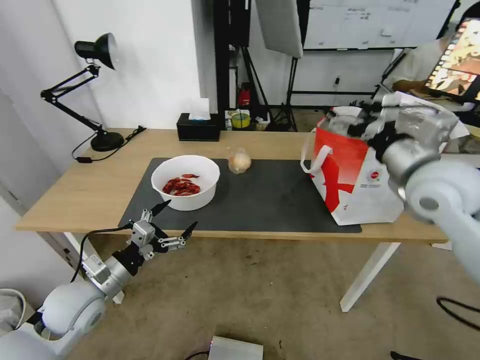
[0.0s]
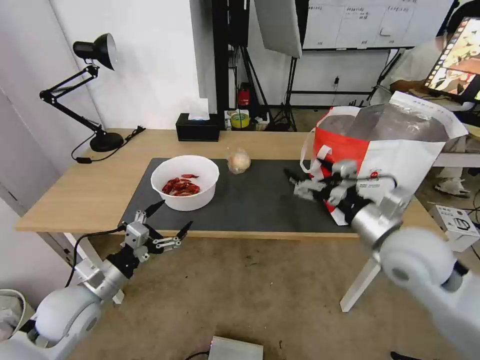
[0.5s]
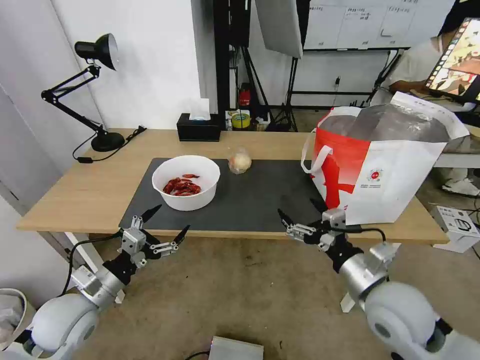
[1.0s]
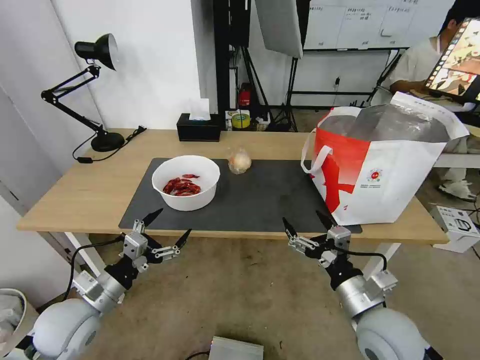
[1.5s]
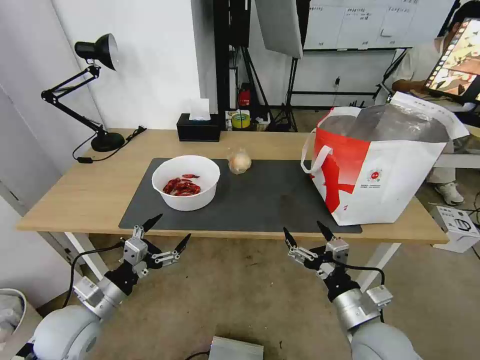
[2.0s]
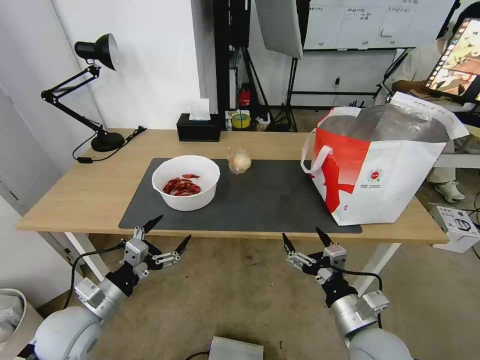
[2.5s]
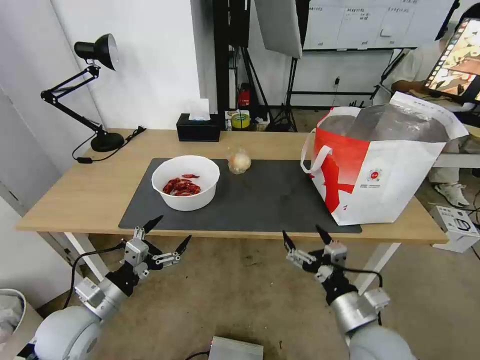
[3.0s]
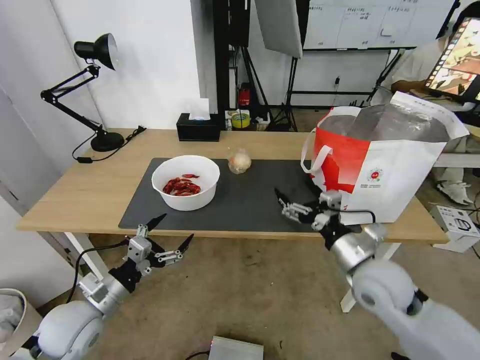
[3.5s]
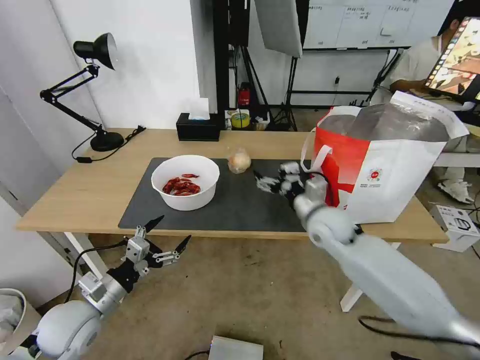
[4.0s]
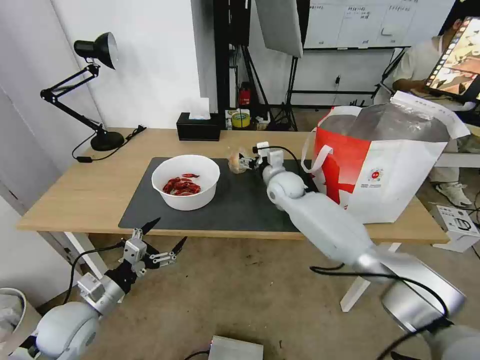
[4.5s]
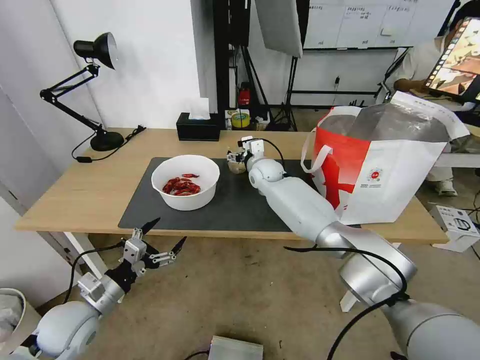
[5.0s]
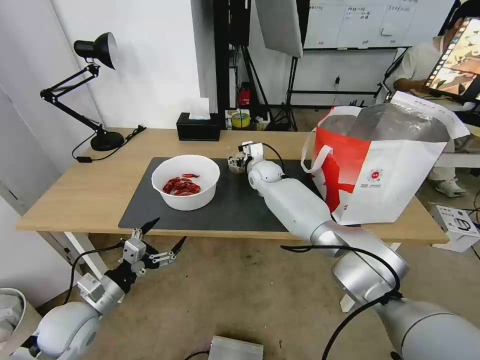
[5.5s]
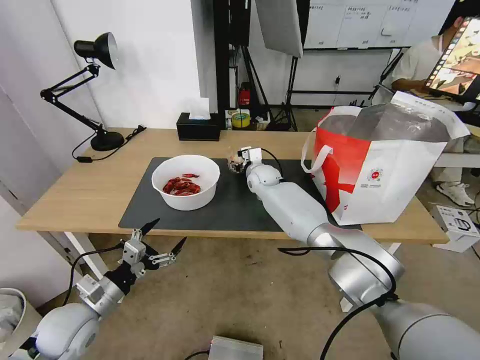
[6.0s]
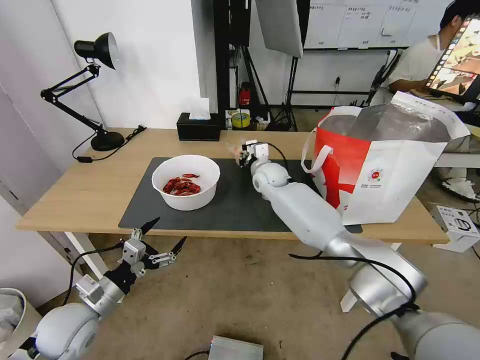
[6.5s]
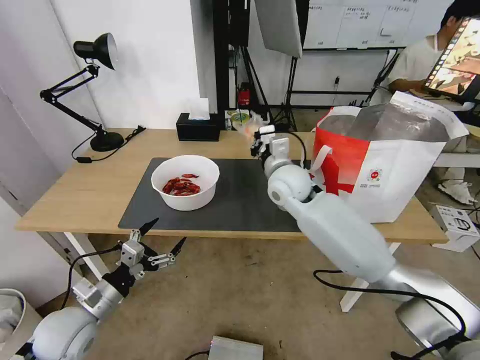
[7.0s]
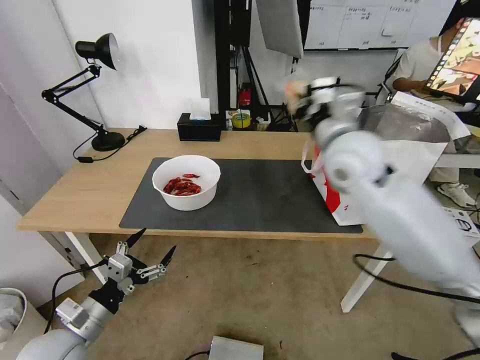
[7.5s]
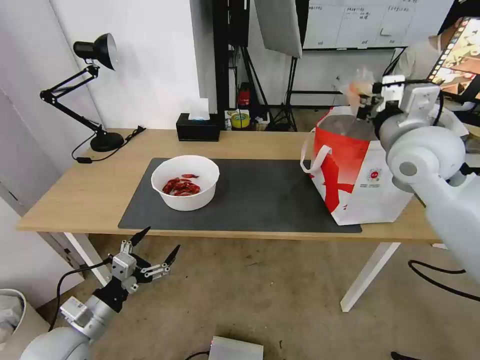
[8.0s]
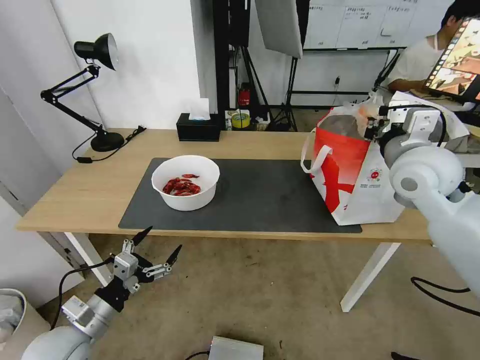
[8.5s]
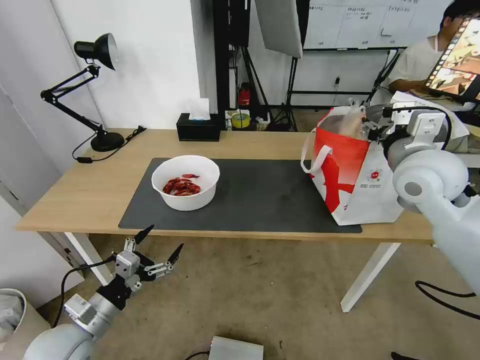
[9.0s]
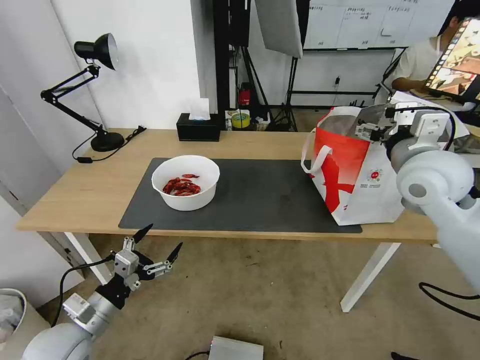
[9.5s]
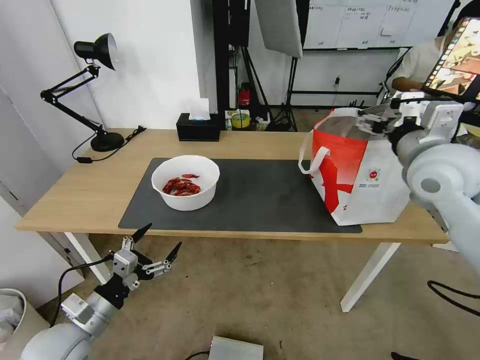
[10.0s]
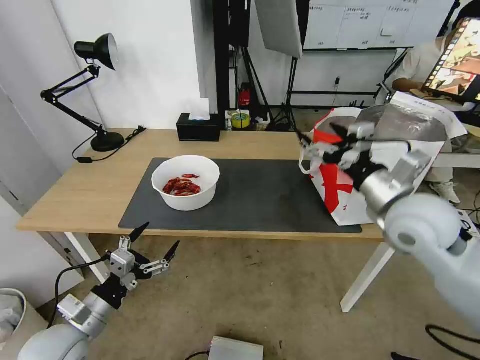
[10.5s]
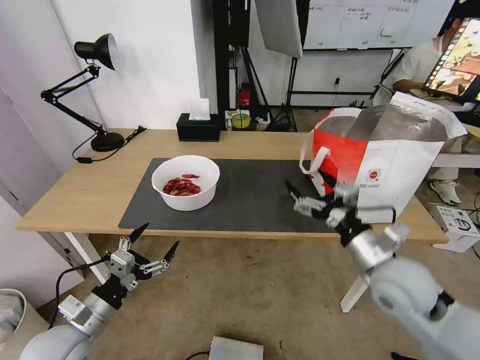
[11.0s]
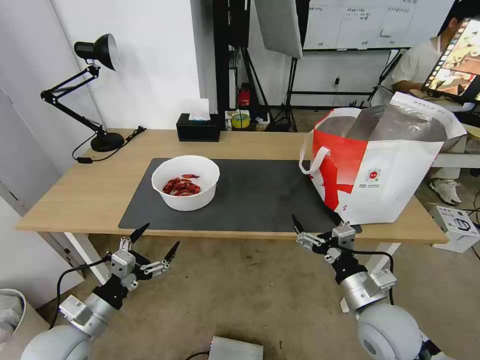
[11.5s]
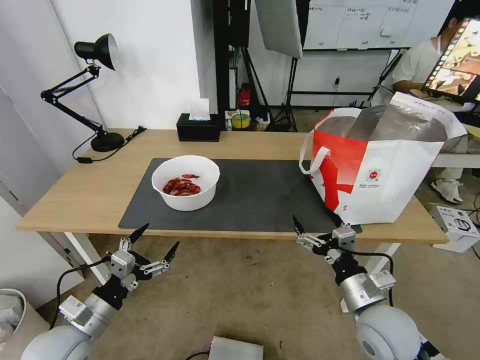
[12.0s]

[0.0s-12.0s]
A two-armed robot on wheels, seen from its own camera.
Task of the whole recording: Pick up the trash from the table and place it into the takeout bag.
0.0s to 2.0s: The right gripper heads downward and backward, covering about 30 cm.
2.0s to 4.0s: The right gripper shifts about 25 cm forward.
4.0s to 6.0s: The right gripper goes approximately 25 cm forward and to the left.
6.0s to 8.0s: The right gripper travels upward, to the right and backward by approximately 40 cm, and closes its fingers.
8.0s to 10.0s: The right gripper opens its fingers.
10.0s to 12.0s: The right gripper heads downward and backward, covering roughly 30 cm.

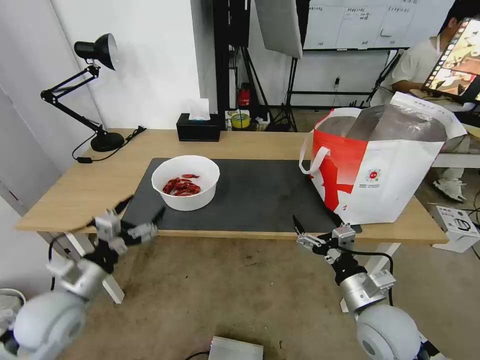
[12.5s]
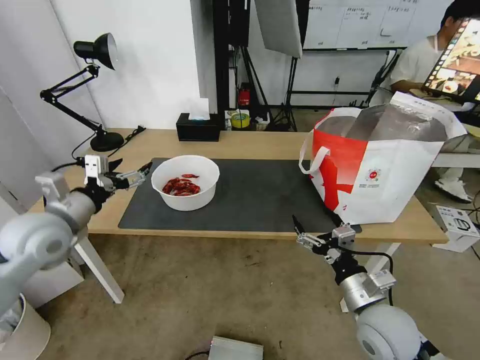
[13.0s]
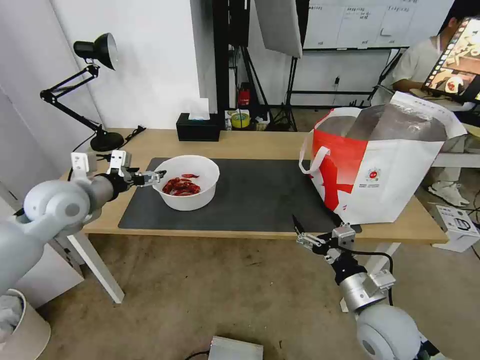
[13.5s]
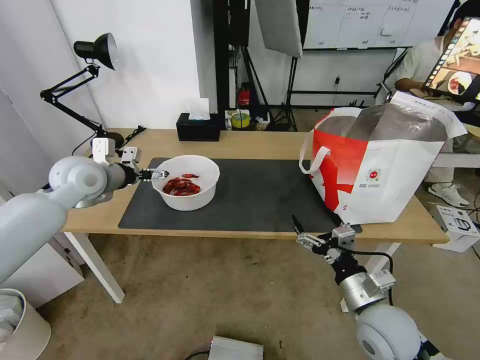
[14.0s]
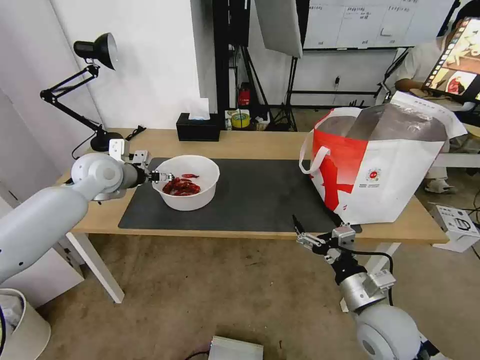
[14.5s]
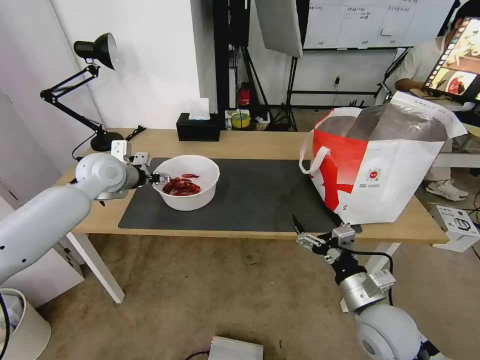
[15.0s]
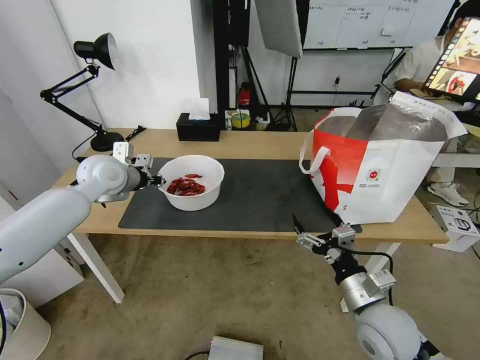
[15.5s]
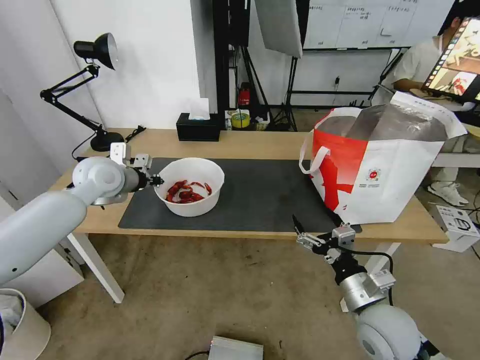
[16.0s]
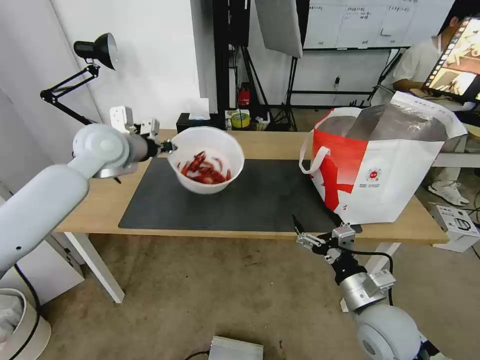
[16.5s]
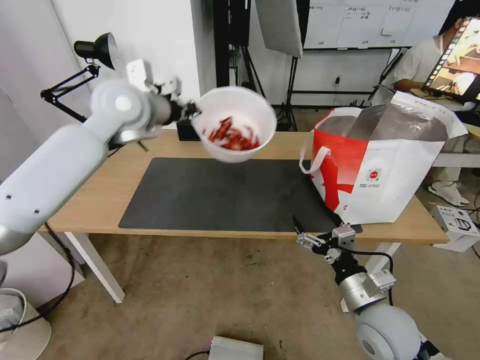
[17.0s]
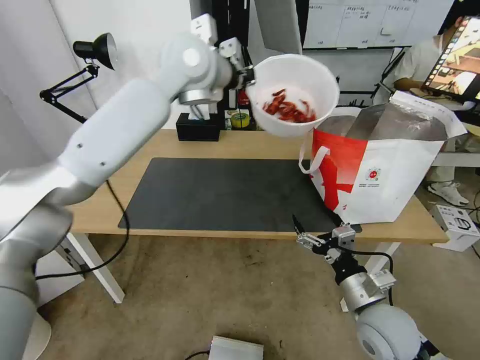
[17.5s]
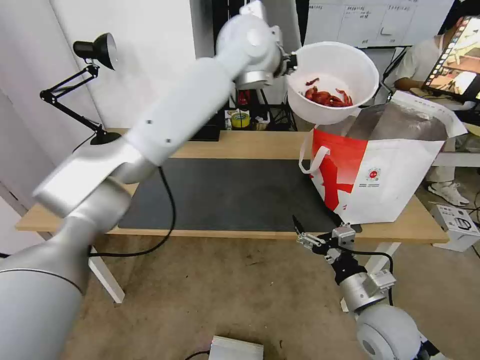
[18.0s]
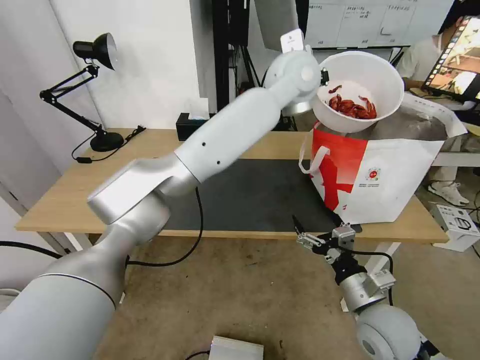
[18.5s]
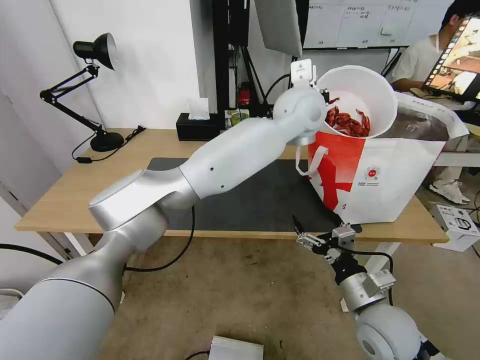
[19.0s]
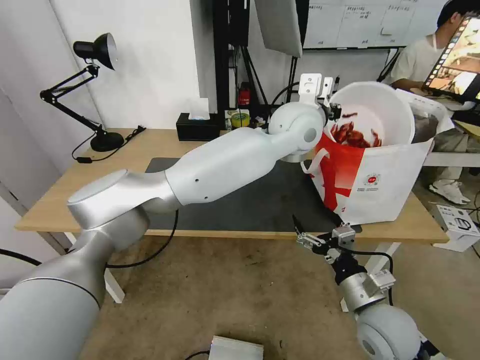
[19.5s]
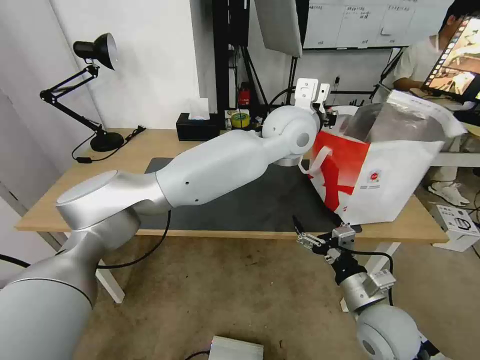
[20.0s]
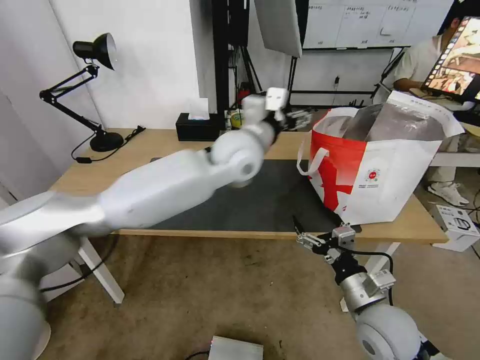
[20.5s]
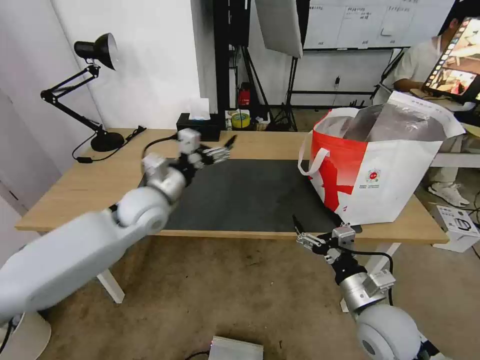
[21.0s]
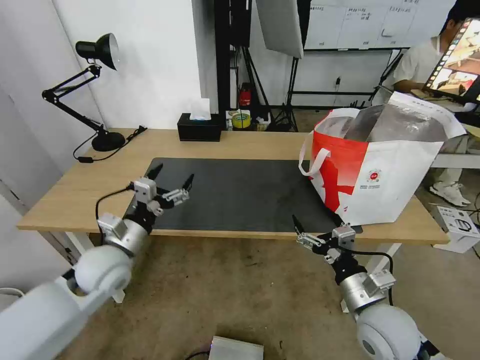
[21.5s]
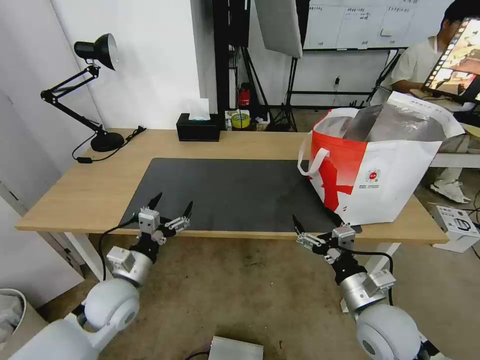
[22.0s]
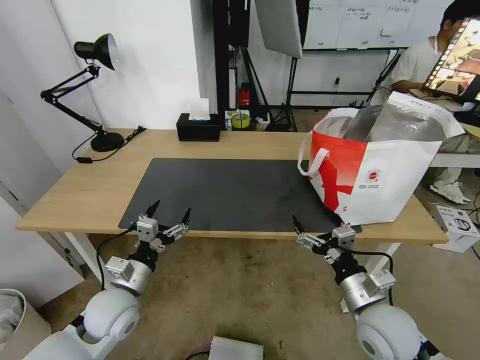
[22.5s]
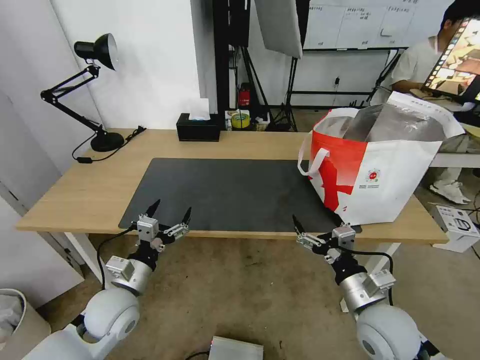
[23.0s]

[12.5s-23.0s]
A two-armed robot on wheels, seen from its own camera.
Task of the whole recording: Pick up the trash from the table and place it into the takeout bag.
12.5s to 14.5s: The left gripper moves forward and upward, about 25 cm.
14.5s to 16.5s: The left gripper goes roughly 5 cm upward, and closes.
16.5s to 19.0s: The left gripper moves to the right, approximately 40 cm.
19.0s to 21.0s: The left gripper travels to the left and downward by about 35 cm, and opens.
21.0s to 23.0s: The left gripper heads backward and downward, covering about 20 cm.

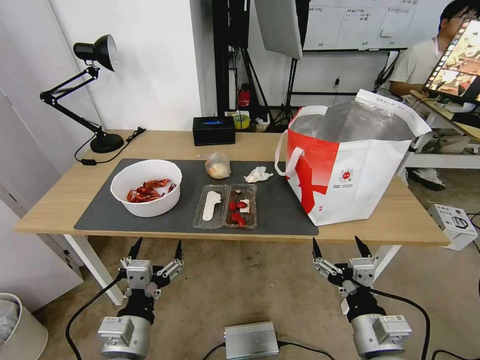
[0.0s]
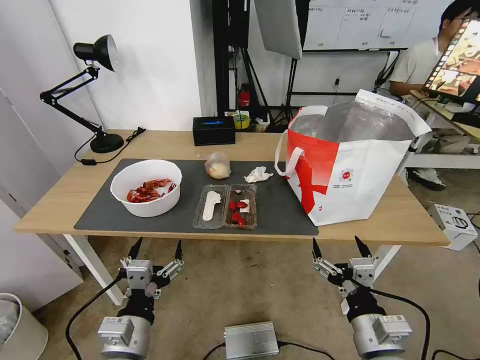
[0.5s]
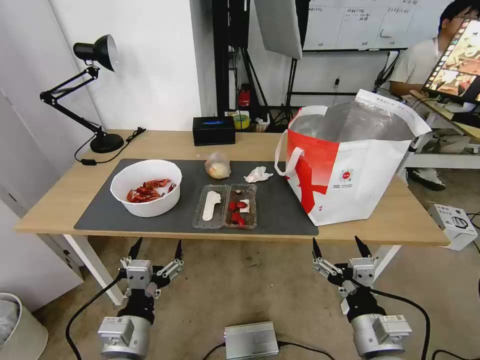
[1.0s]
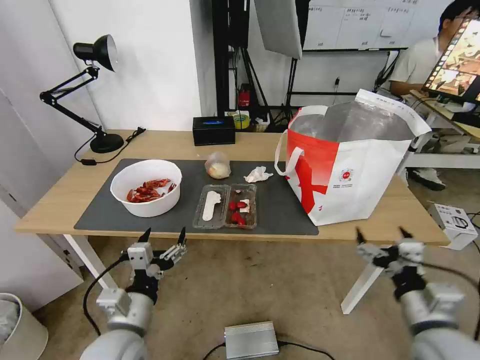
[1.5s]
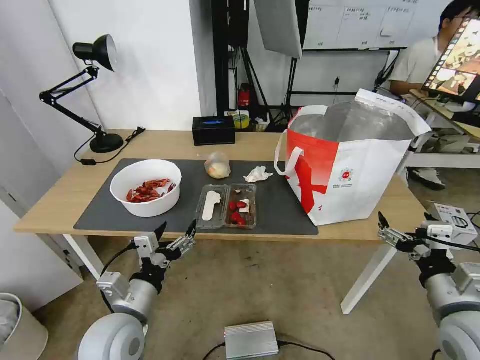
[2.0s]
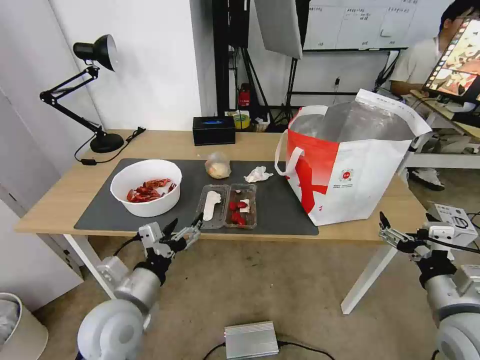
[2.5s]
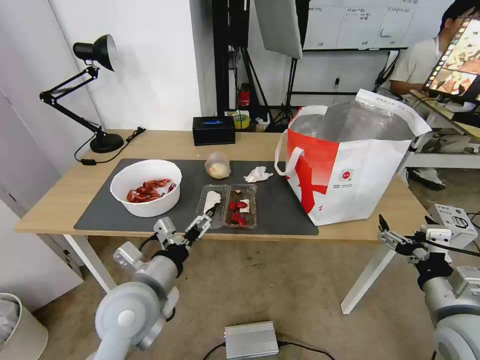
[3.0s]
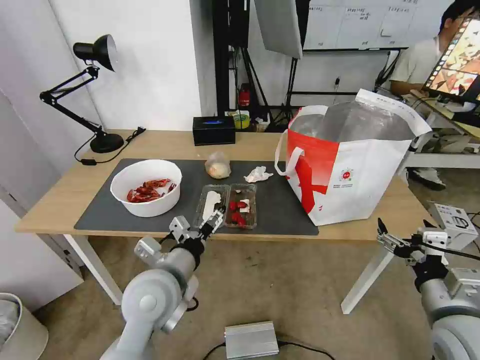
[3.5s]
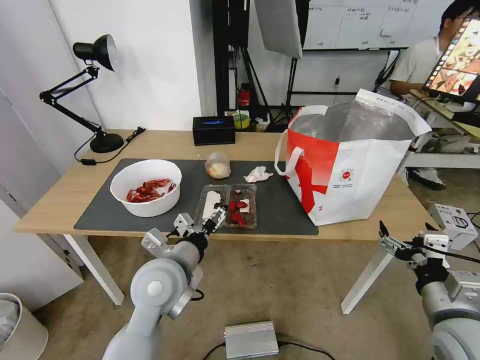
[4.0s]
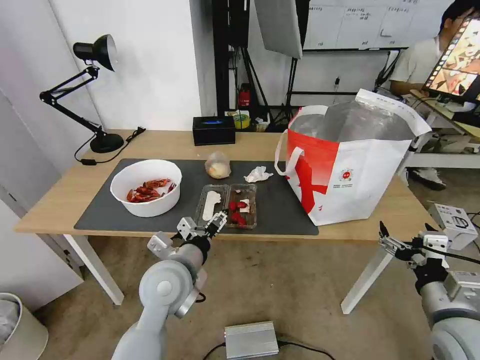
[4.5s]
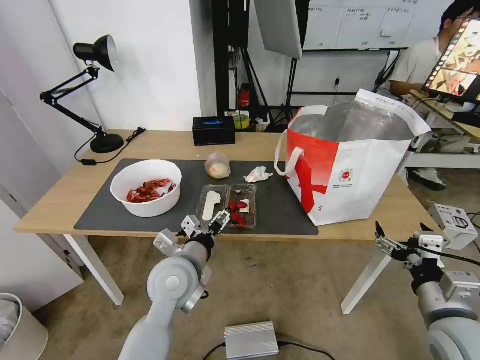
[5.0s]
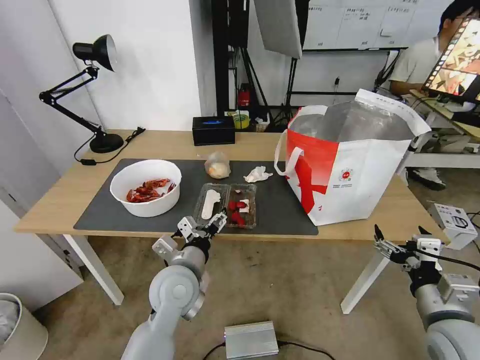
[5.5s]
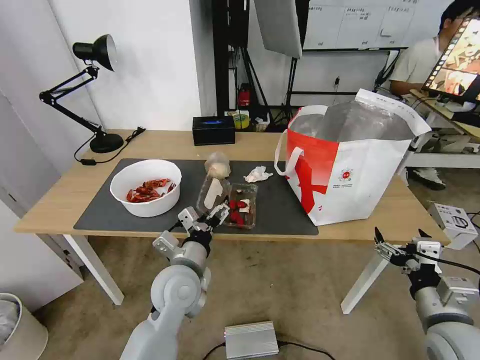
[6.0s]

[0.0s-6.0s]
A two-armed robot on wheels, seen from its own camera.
Task of the whole recording: Pick up the trash from the table and place it into the takeout bag.
2.0s to 4.0s: The left gripper travels to the right, forward and upward by about 10 cm.
4.0s to 6.0s: The left gripper shifts roughly 5 cm downward.
